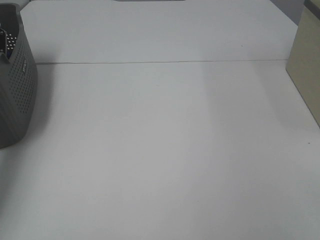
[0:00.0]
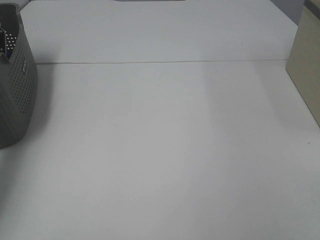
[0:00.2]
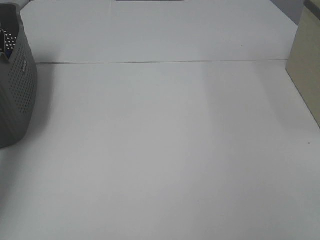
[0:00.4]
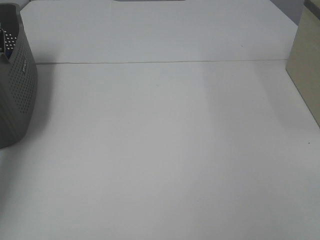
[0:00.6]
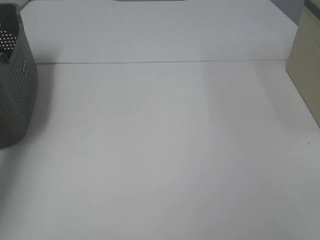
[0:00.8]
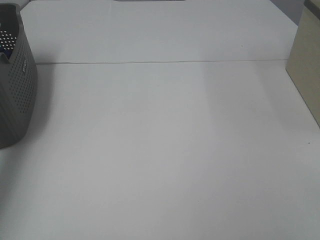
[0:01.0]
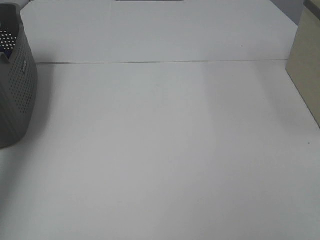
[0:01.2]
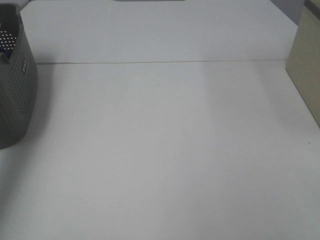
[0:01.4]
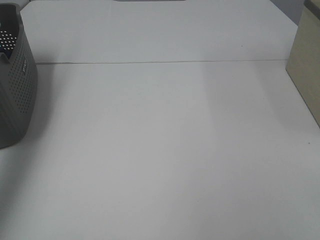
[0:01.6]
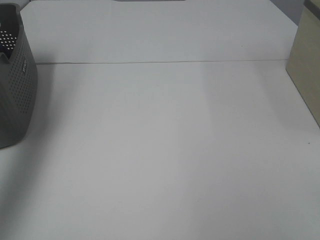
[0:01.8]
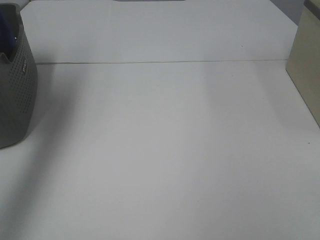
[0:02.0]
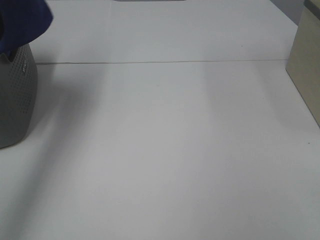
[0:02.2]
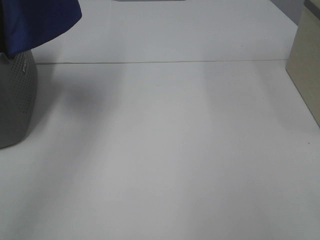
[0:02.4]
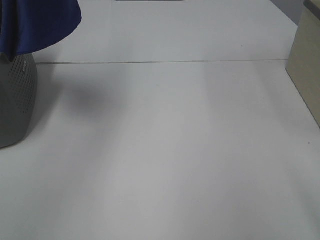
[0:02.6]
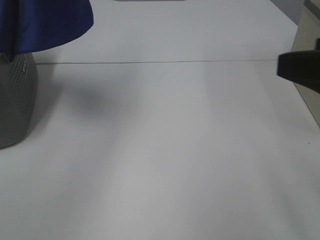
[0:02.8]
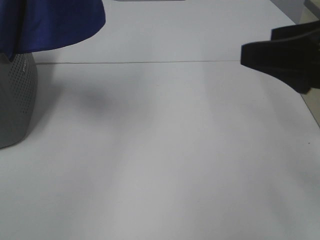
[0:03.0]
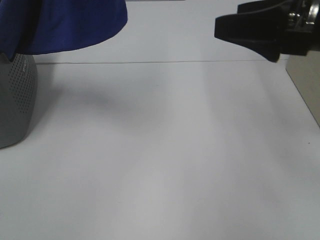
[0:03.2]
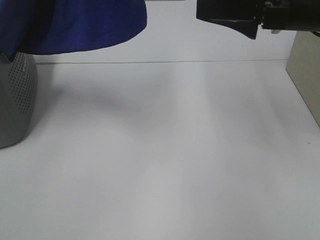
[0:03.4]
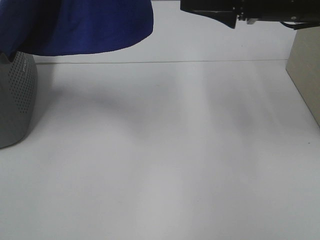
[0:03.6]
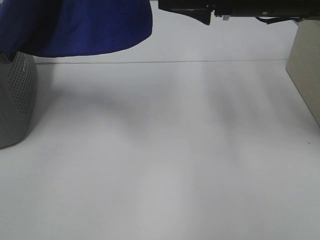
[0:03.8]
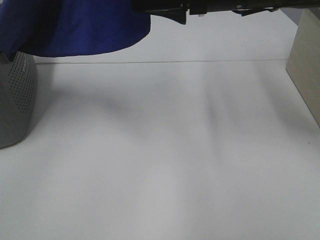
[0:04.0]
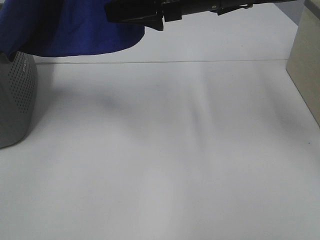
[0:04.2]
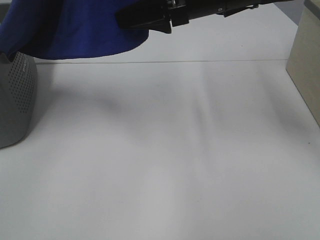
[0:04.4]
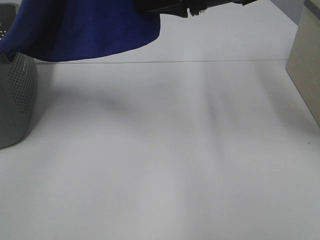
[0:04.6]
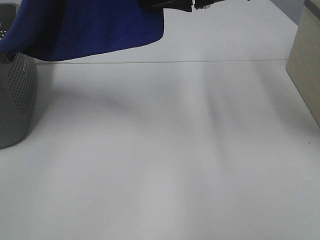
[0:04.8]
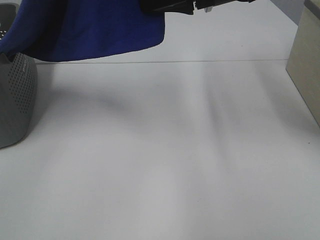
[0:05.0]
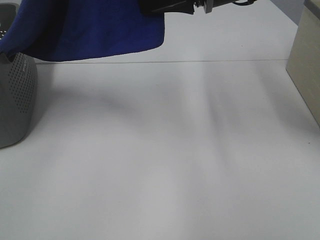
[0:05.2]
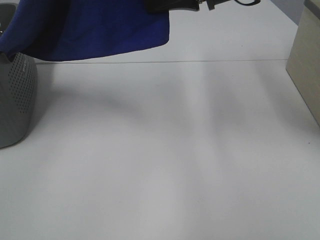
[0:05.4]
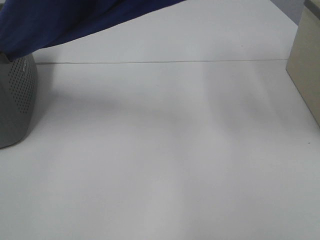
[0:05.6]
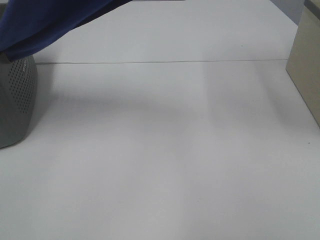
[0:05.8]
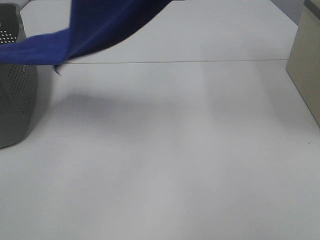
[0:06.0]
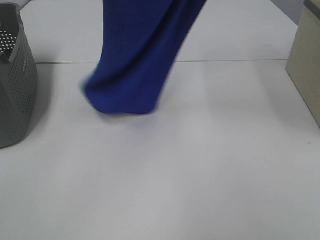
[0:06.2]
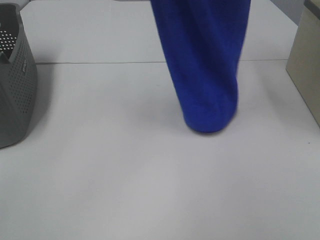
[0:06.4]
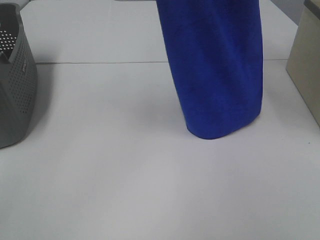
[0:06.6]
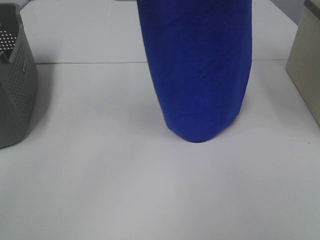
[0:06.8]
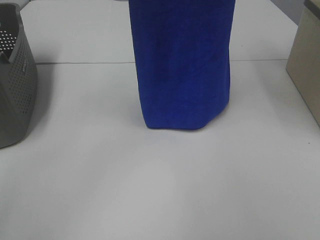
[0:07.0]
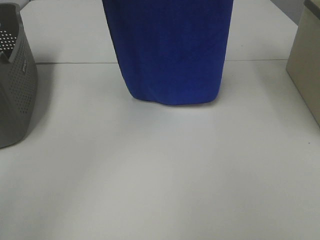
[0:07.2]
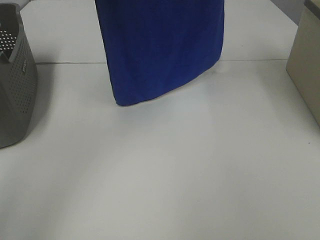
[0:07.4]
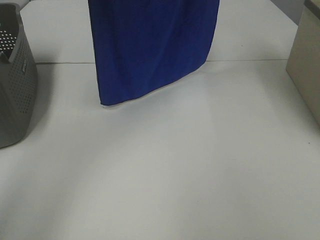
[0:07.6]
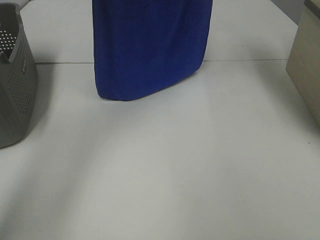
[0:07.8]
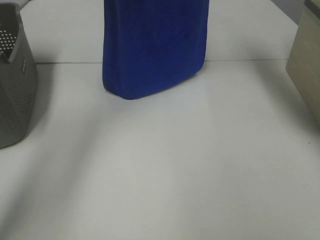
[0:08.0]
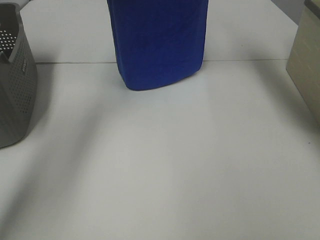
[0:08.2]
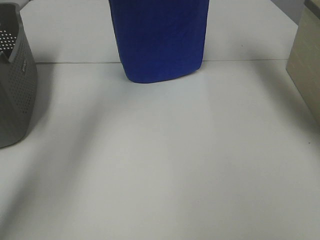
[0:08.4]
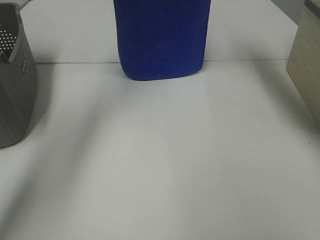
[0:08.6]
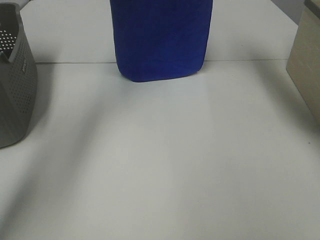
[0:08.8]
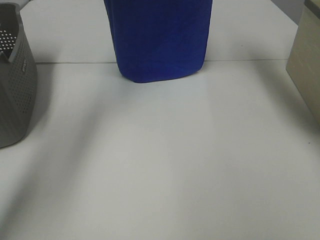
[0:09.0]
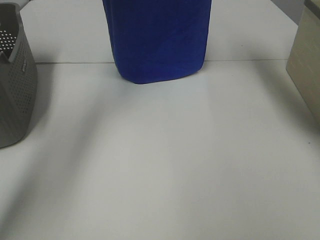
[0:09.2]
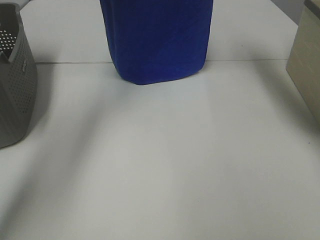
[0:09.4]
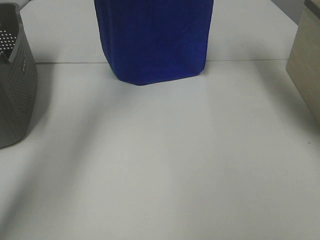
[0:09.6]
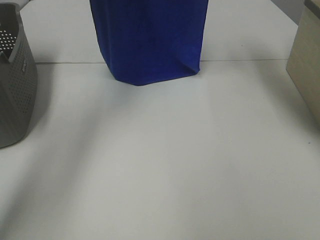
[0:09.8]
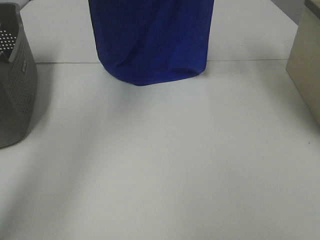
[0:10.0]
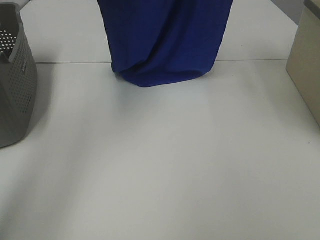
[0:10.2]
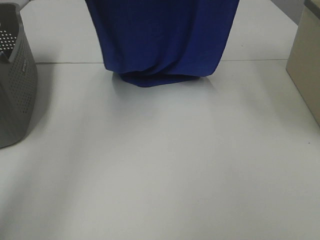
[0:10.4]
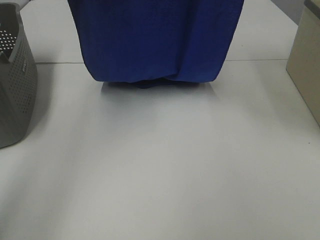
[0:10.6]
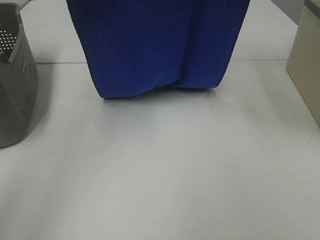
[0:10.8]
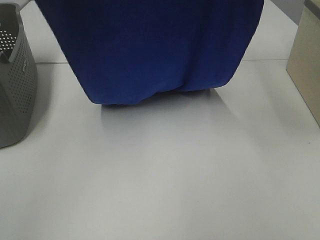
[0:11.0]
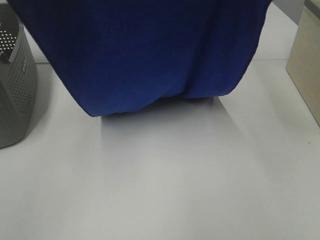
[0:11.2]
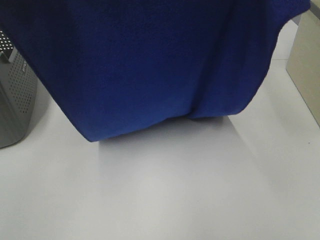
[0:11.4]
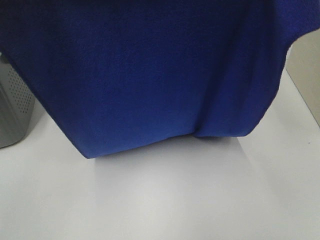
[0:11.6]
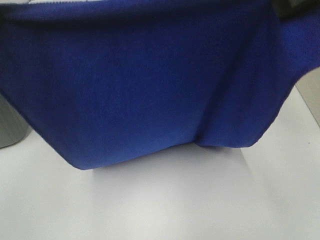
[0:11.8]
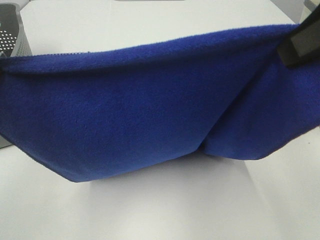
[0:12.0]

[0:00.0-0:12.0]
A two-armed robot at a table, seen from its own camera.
Task of the whole recording: Remove the towel and place it.
Step, 2.0 to 4.6 s: Right hand: grab a corner of the blue towel and straighten it.
Step, 4.8 to 10.6 s: Left hand: spread the blue towel flat on the table.
Step, 4.8 to 10.6 s: Right hand: spread the blue towel flat on the table.
0.0 to 1.6 s: The left gripper shifts some 25 cm upward, and closes its fingers.
1.6 to 3.0 s: The right gripper shifts approximately 20 cm forward. The left gripper heads to the right and upward, covering approximately 25 cm.
3.0 to 4.4 s: The right gripper is displaced forward and to the left by some 20 cm.
4.4 to 6.0 s: The right gripper is displaced upward and to the right by some 25 cm, and closes up.
6.0 to 7.6 s: Both grippers travel together forward, approximately 10 cm.
7.6 to 9.0 s: The right gripper moves forward, approximately 5 cm. The left gripper moves forward, approximately 10 cm.
9.0 to 10.4 s: The grippers both shift backward by about 10 cm.
10.4 to 12.0 s: The grippers both shift backward and downward by approximately 25 cm.

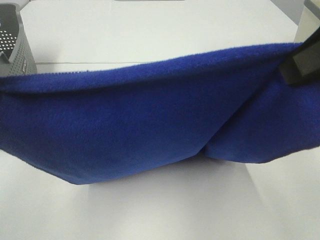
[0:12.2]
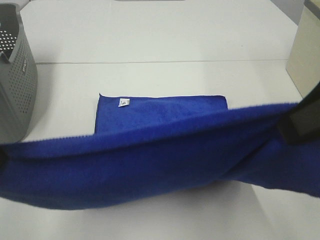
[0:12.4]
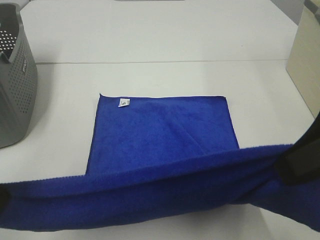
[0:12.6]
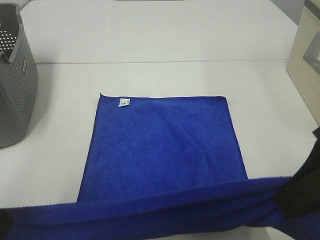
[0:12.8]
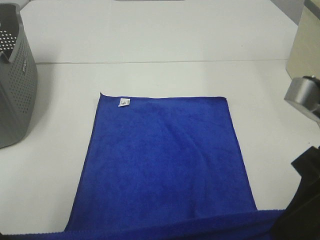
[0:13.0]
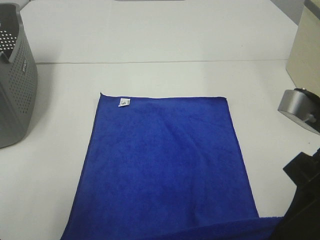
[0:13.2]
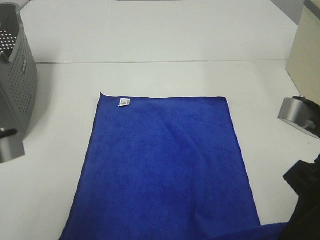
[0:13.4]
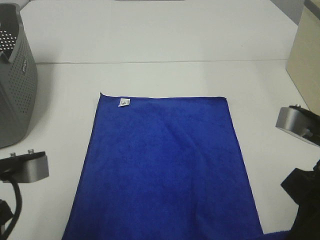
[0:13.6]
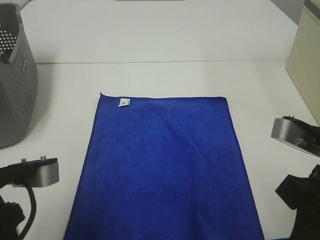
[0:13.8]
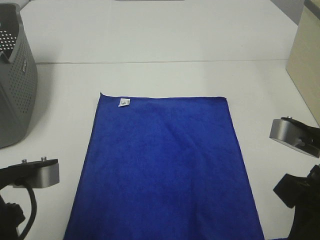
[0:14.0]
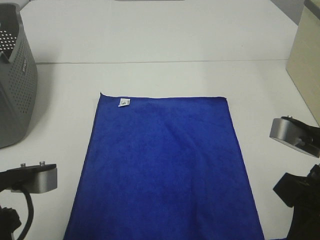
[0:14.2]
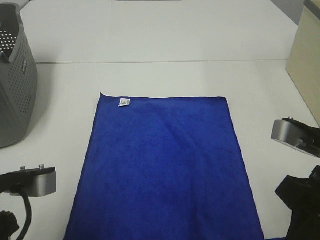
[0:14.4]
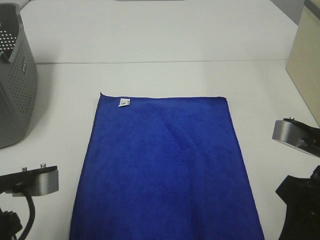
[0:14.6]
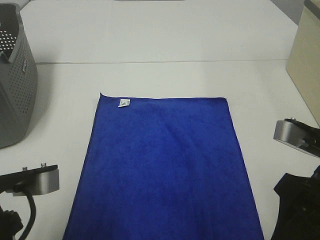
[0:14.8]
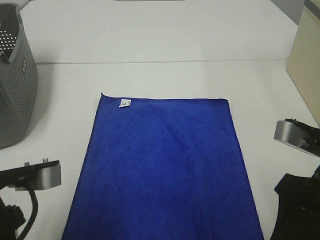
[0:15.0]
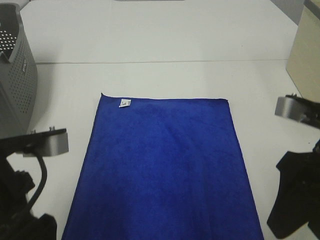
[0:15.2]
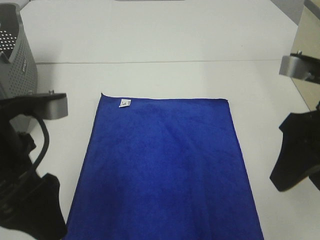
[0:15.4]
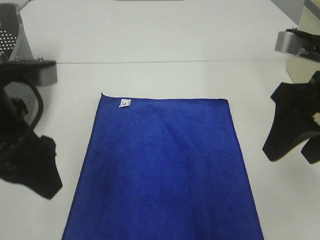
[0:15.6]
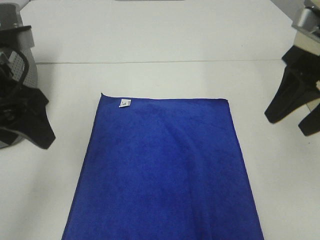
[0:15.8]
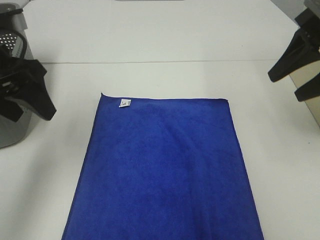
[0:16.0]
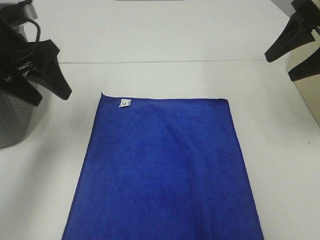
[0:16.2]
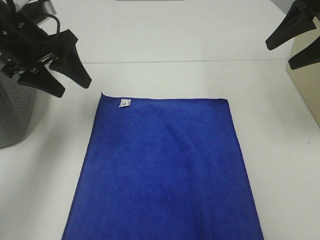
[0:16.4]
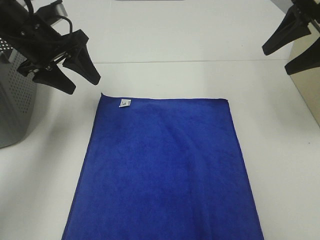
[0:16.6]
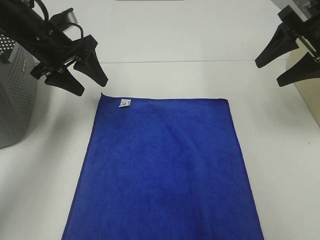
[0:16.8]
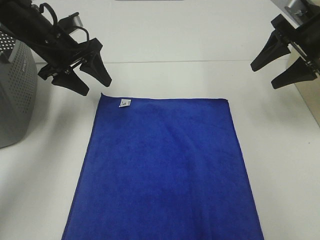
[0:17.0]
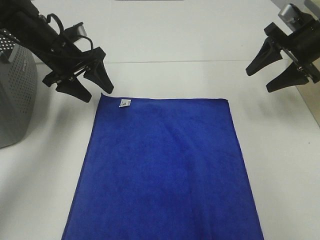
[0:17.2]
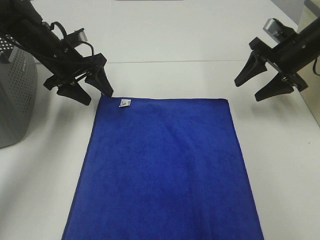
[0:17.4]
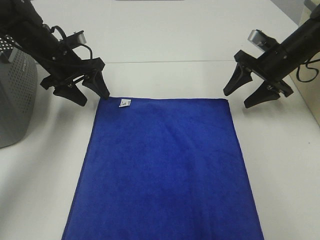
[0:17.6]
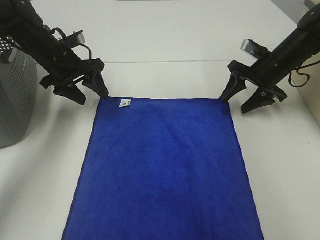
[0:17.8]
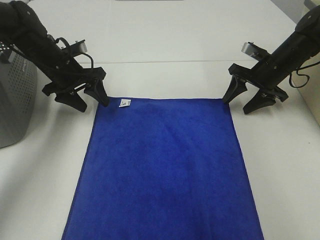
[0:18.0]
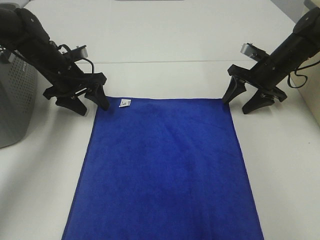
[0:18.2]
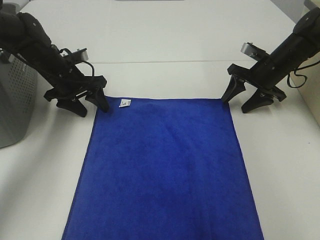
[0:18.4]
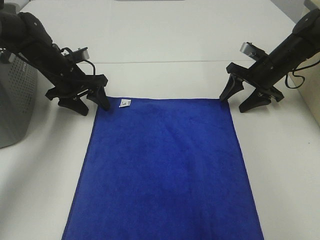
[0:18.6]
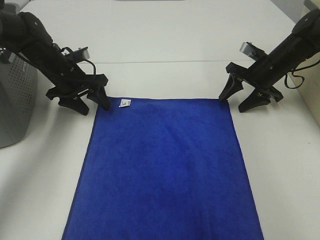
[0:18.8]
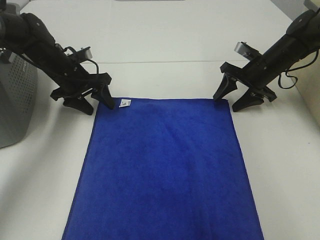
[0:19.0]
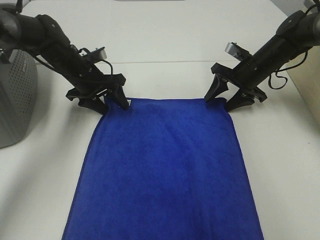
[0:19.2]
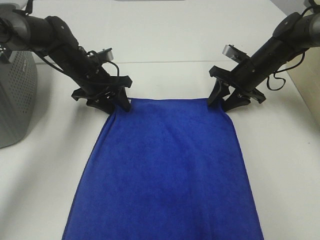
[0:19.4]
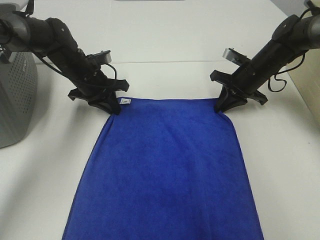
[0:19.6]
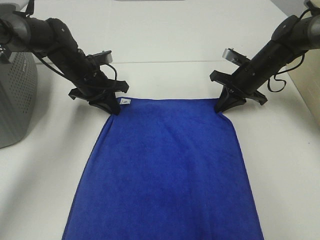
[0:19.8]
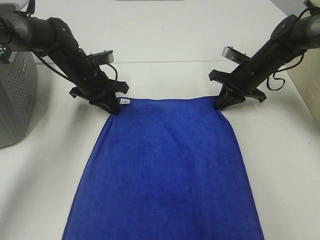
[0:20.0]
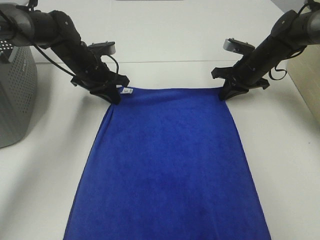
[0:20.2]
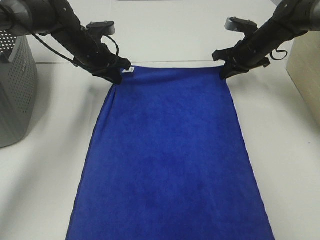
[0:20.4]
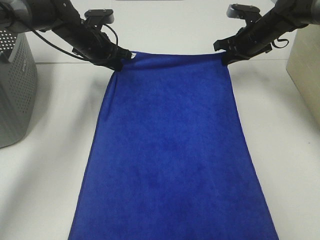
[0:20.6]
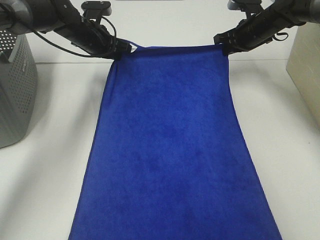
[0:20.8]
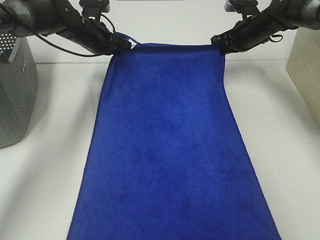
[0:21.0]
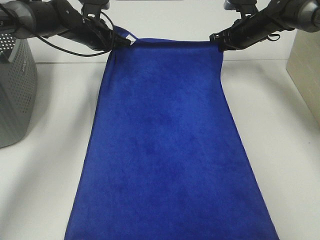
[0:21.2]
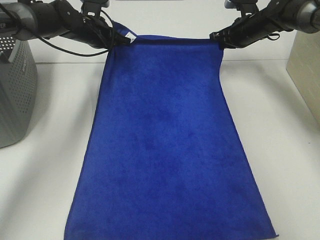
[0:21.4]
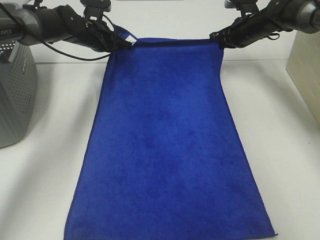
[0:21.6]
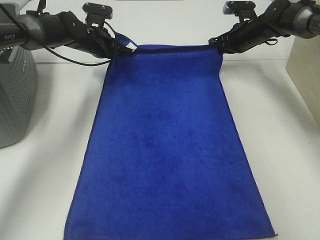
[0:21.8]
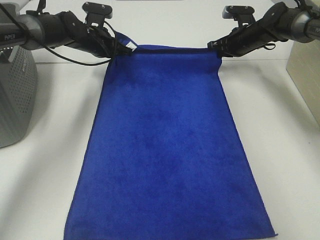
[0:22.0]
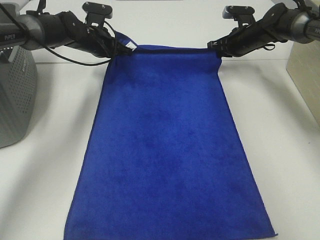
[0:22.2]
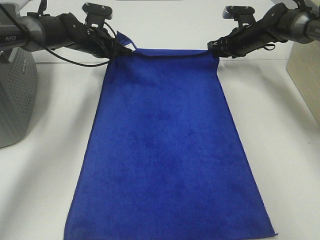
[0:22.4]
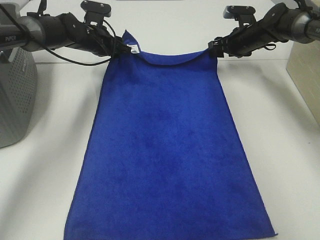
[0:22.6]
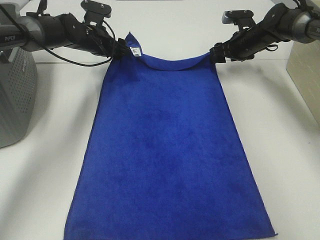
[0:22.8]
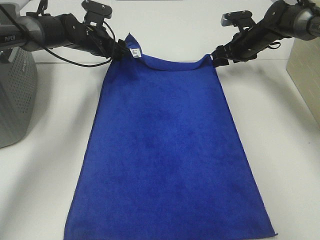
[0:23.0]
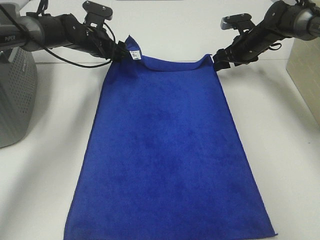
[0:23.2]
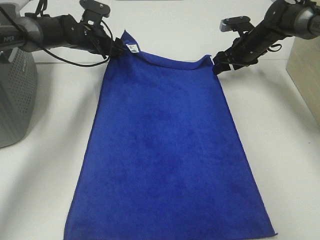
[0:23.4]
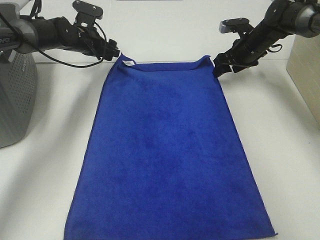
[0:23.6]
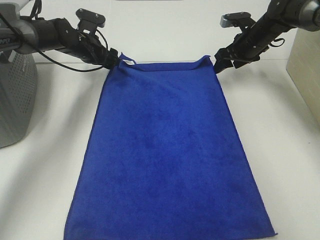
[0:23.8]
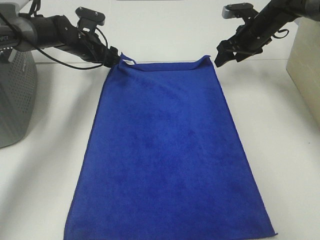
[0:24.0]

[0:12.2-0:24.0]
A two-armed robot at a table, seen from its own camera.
Task of the whole recording: Remove the towel and place it.
Step, 12.2 to 17.8 s: Left hand:adjust the blue towel.
Step, 12.2 to 17.8 s: Right hand:adjust the blue towel.
12.2 to 13.6 s: Both grippers travel together downward, approximately 15 cm.
13.6 to 15.2 s: The right gripper opens its fingers, while the left gripper opens.
15.2 to 16.6 s: The right gripper goes some 20 cm forward and to the right; the left gripper moves forward, some 25 cm.
16.6 to 18.2 s: The left gripper goes approximately 15 cm downward and forward; the right gripper moves downward and forward, some 20 cm.
18.2 to 19.6 s: The left gripper changes place by about 5 cm, and closes. Meanwhile the right gripper closes.
19.6 to 21.0 s: Both grippers travel together forward and upward, roughly 10 cm.
21.0 to 22.6 s: The left gripper opens its fingers. The right gripper opens its fingers.
22.6 to 24.0 s: The right gripper shifts by roughly 5 cm.
